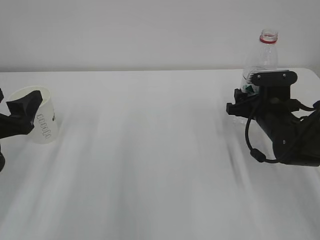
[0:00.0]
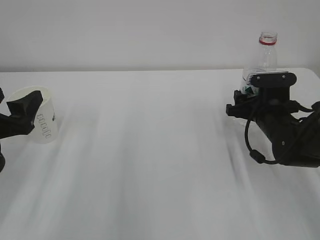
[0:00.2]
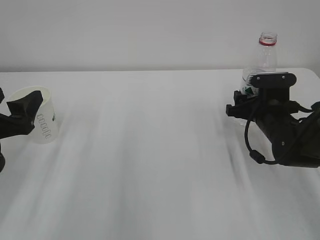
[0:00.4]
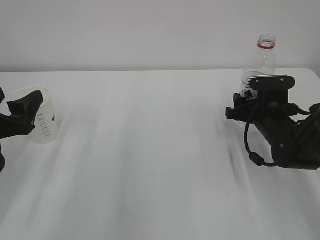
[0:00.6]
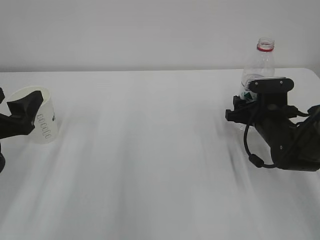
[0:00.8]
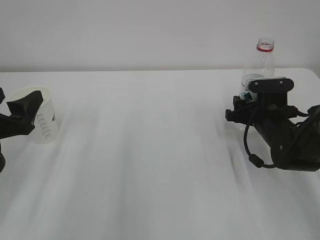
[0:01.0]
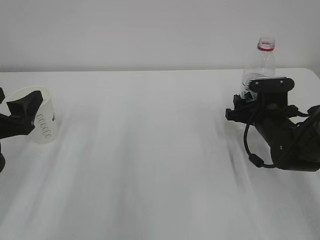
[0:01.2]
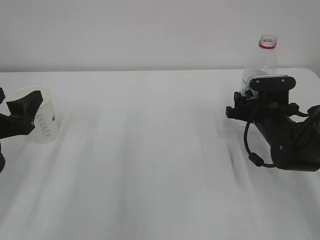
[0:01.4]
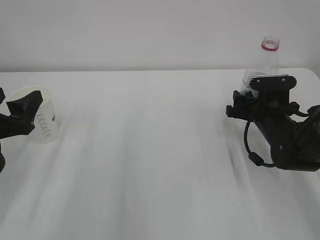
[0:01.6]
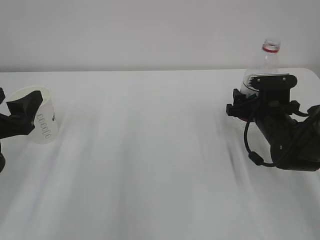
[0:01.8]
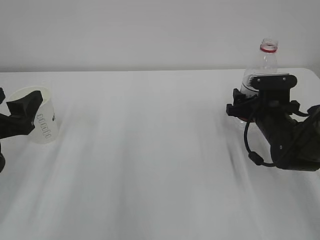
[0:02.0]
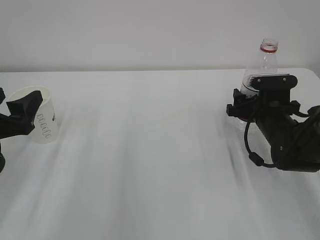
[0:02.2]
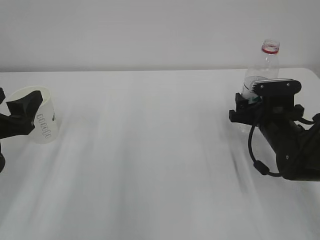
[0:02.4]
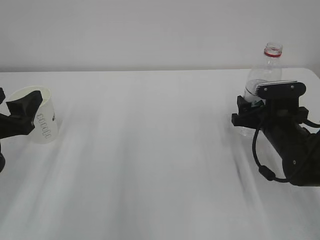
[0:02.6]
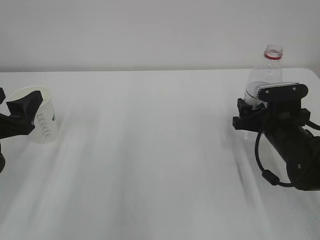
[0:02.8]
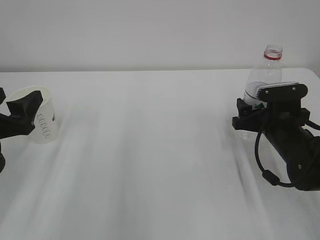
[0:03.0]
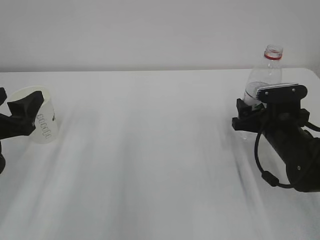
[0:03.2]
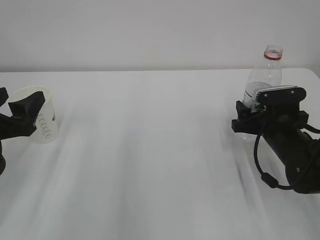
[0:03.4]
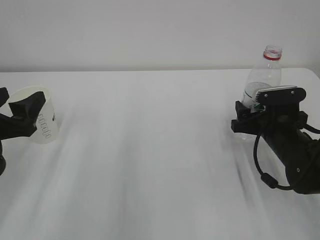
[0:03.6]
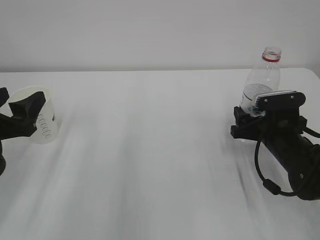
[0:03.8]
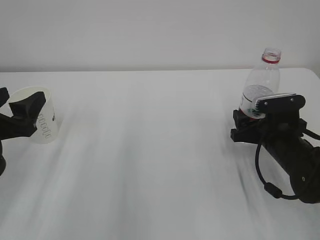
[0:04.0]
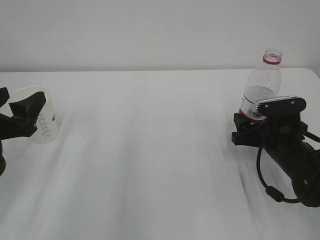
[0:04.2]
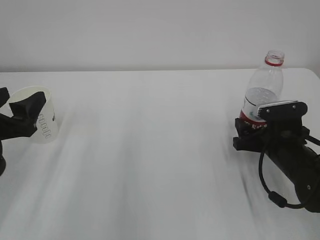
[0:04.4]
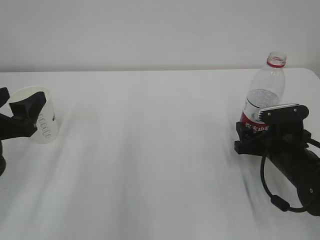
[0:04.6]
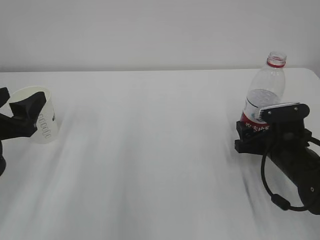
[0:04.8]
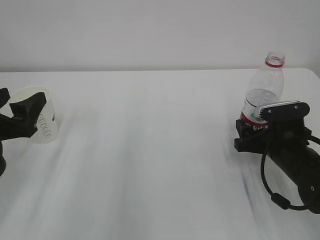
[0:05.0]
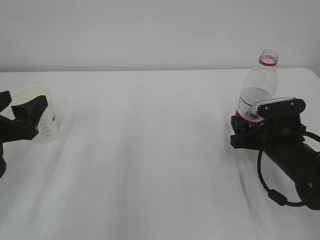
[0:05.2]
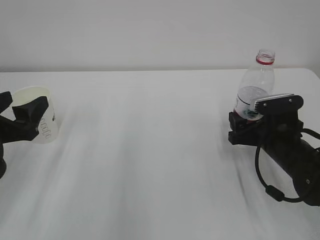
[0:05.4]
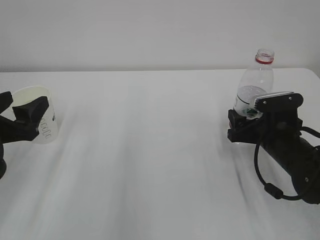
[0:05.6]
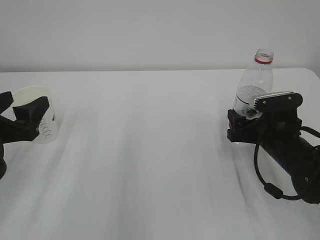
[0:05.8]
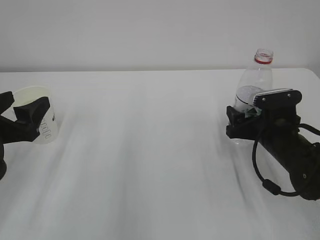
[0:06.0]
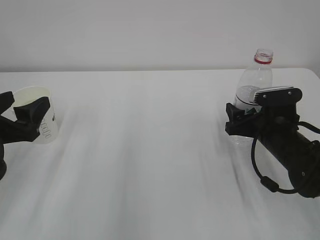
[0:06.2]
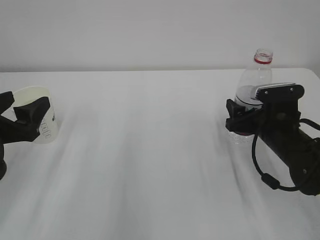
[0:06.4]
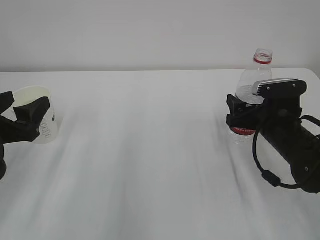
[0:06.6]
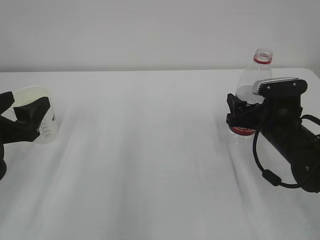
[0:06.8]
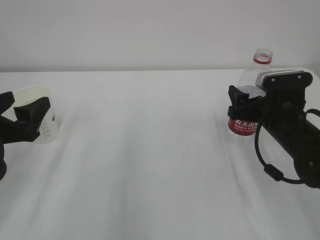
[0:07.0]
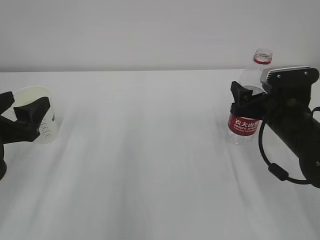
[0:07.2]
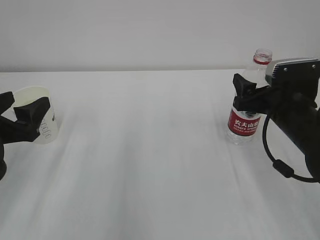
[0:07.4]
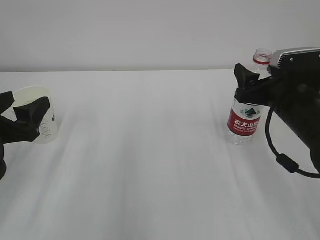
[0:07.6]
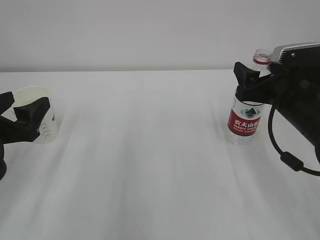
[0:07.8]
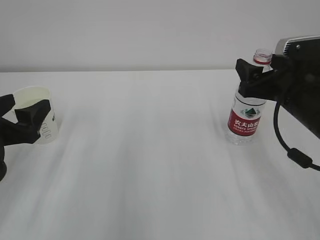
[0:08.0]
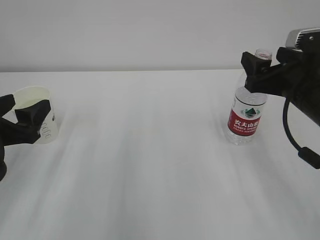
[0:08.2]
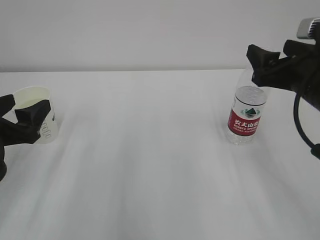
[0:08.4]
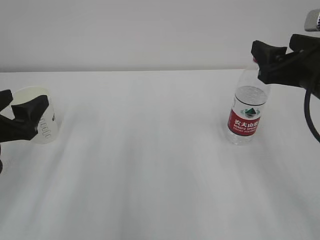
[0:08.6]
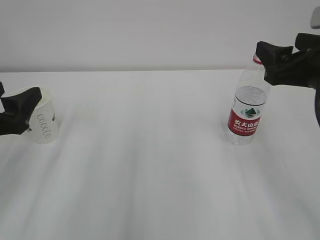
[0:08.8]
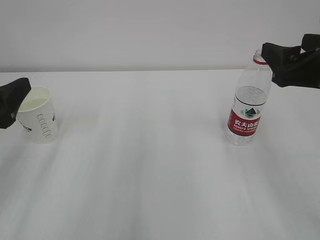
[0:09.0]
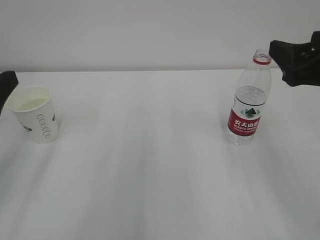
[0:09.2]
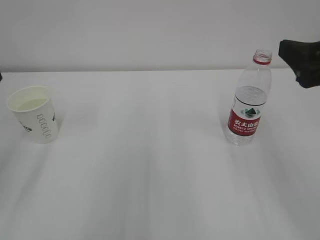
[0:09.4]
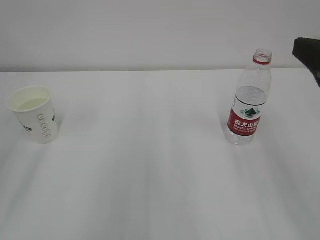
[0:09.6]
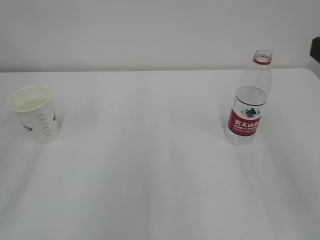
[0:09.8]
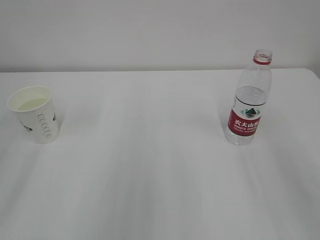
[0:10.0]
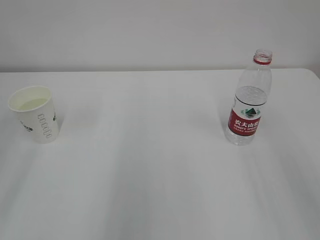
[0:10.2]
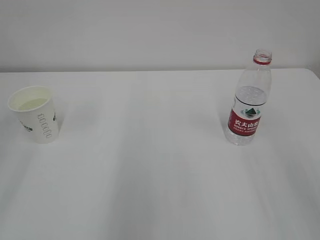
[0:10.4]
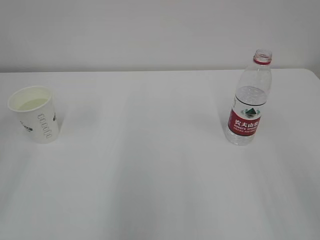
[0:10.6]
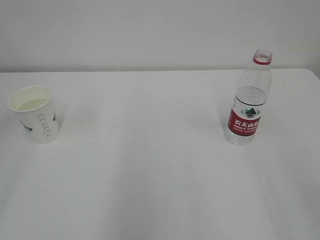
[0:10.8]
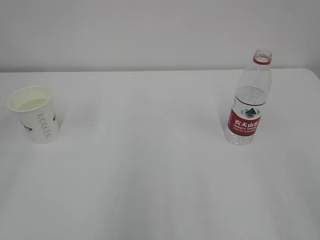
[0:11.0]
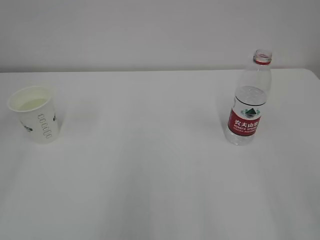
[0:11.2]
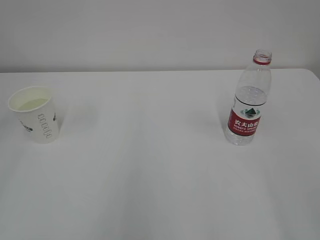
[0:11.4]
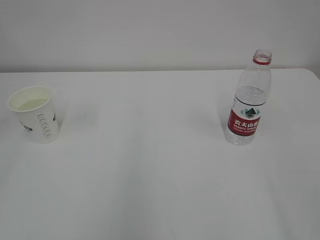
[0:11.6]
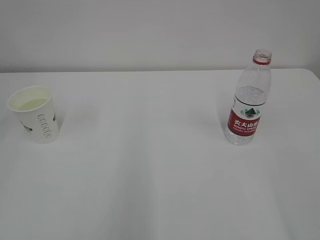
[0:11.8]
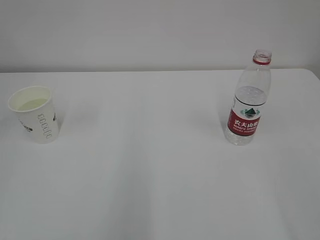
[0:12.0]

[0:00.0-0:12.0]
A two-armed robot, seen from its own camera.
0:00.0 to 0:03.0: The grippers move only a little.
0:03.0 to 0:06.0: The grippers move only a little.
0:06.0 to 0:07.6: The right gripper goes roughly 10 cm upward.
0:07.6 to 0:09.0: The right gripper goes about 10 cm upward and backward. Meanwhile the left gripper moves roughly 5 cm.
0:09.0 to 0:10.4: The right gripper is displaced backward and upward by roughly 15 cm; the left gripper is displaced upward and backward by about 15 cm.

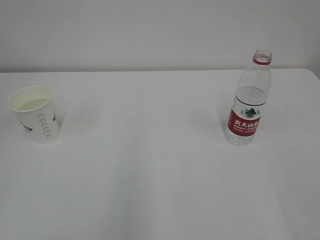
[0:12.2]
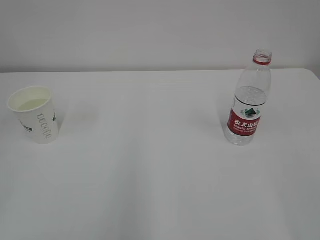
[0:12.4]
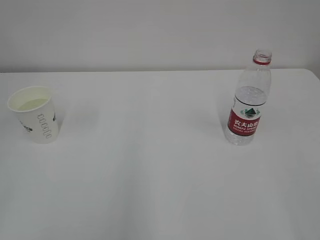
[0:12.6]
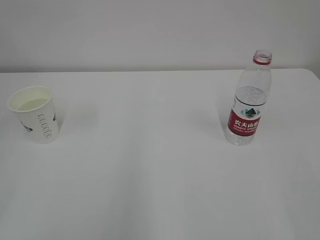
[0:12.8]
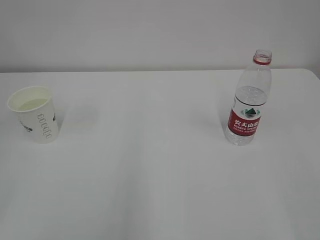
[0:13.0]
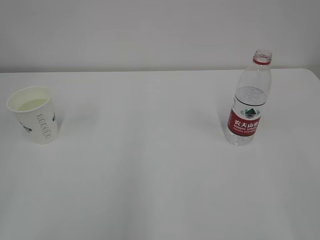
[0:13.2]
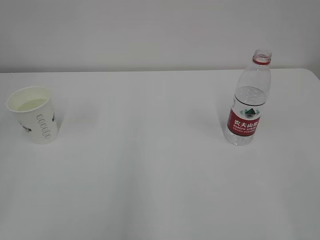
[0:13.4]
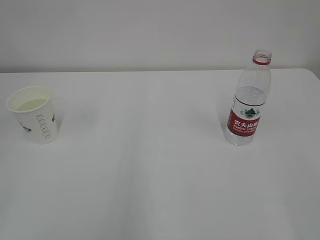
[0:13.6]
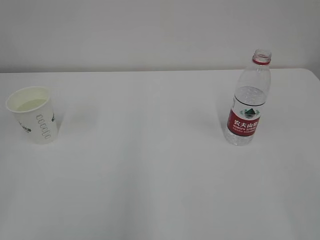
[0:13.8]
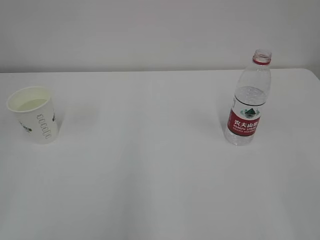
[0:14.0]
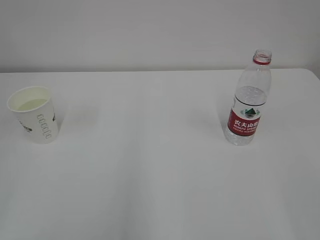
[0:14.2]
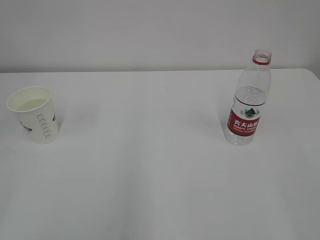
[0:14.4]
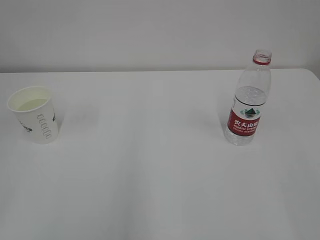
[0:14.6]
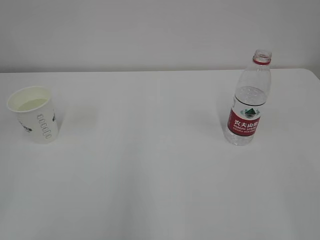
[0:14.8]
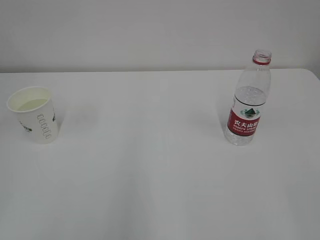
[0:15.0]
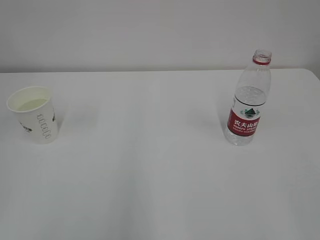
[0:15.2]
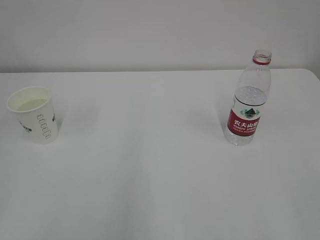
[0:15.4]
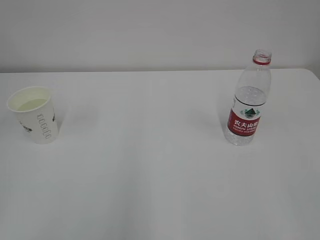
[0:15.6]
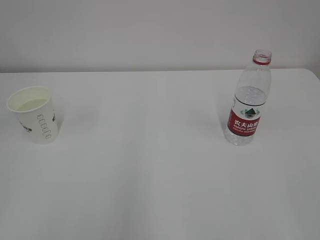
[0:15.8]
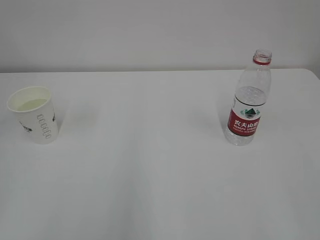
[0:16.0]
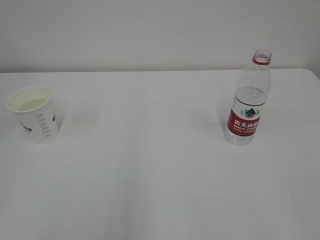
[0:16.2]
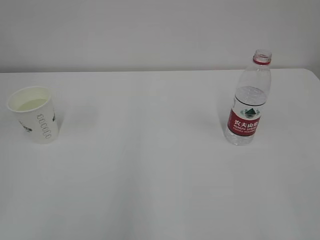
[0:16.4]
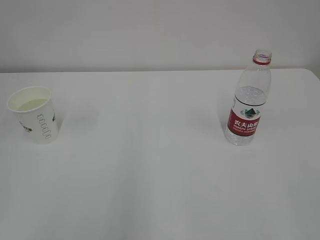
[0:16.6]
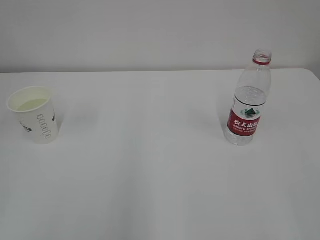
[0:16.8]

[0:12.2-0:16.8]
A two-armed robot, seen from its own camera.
0:15.2 to 0:16.8: Neither gripper changes place.

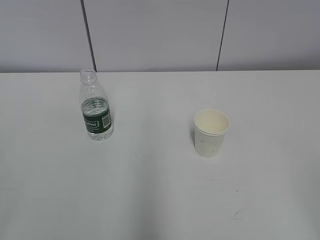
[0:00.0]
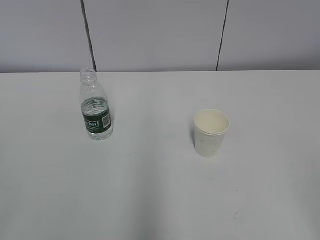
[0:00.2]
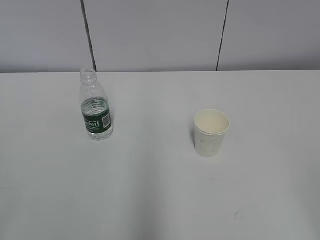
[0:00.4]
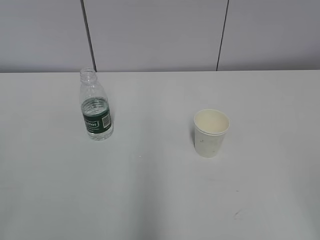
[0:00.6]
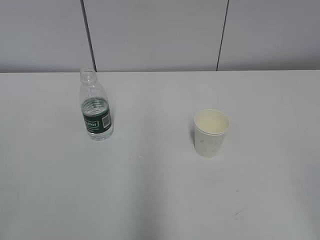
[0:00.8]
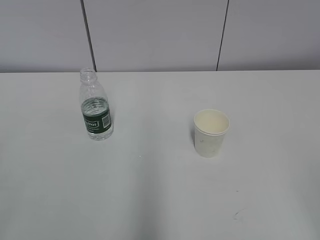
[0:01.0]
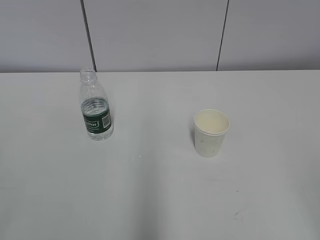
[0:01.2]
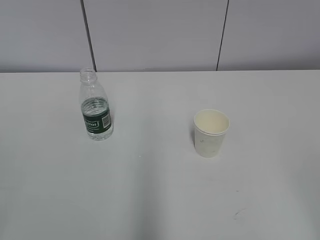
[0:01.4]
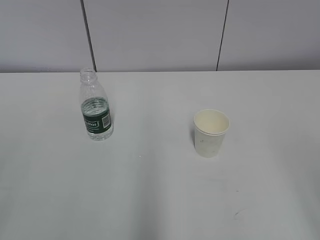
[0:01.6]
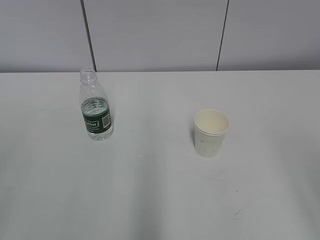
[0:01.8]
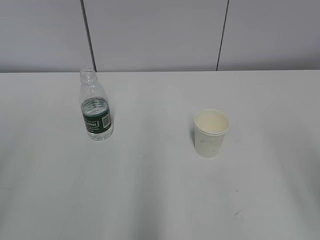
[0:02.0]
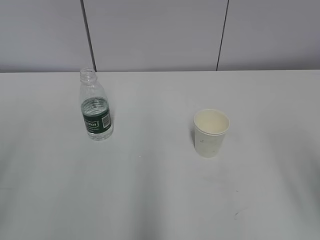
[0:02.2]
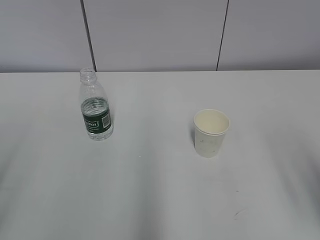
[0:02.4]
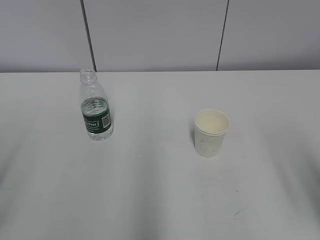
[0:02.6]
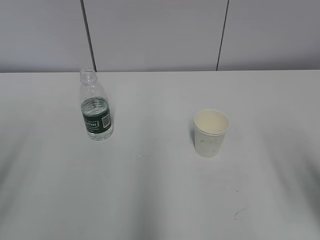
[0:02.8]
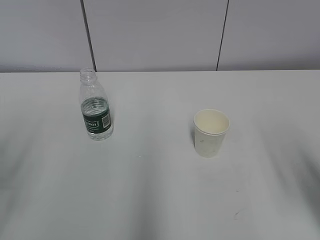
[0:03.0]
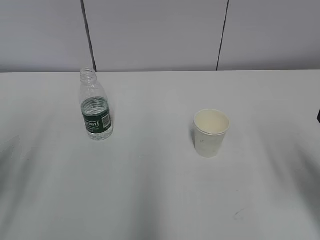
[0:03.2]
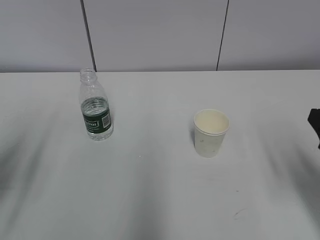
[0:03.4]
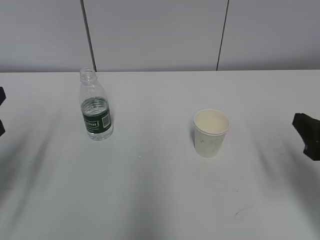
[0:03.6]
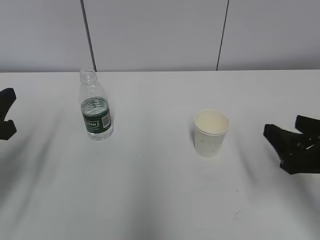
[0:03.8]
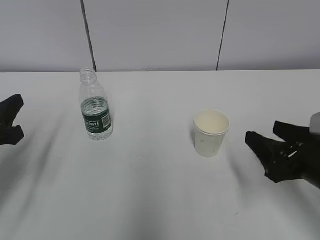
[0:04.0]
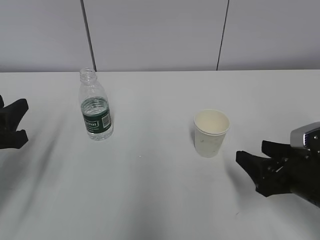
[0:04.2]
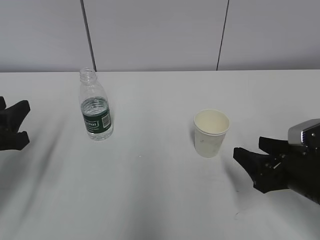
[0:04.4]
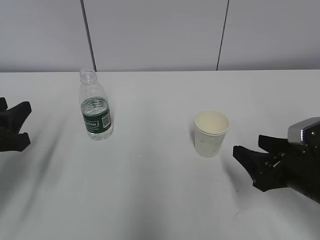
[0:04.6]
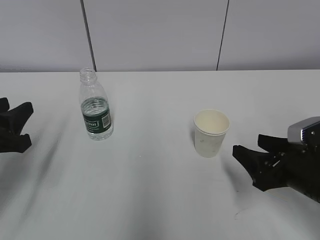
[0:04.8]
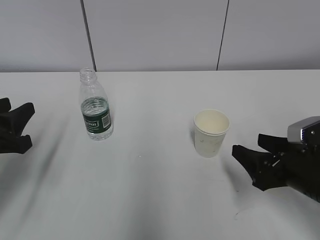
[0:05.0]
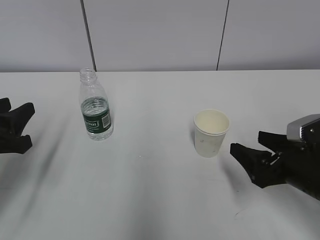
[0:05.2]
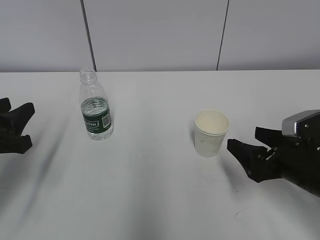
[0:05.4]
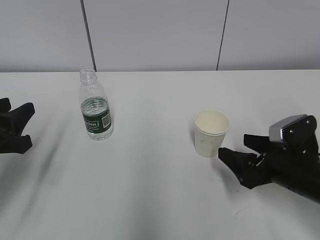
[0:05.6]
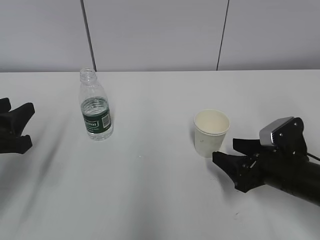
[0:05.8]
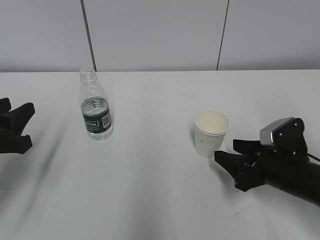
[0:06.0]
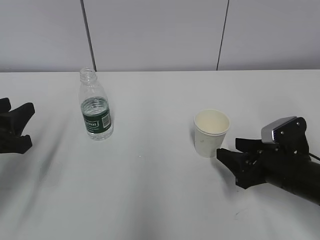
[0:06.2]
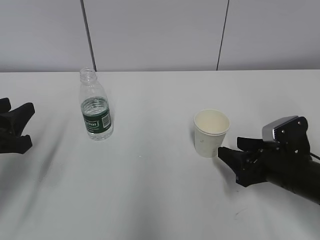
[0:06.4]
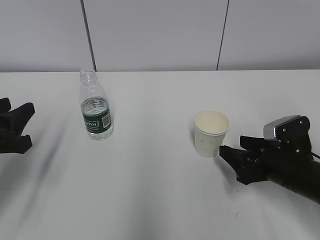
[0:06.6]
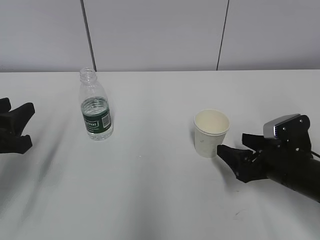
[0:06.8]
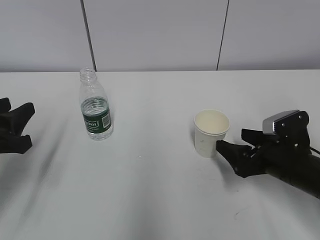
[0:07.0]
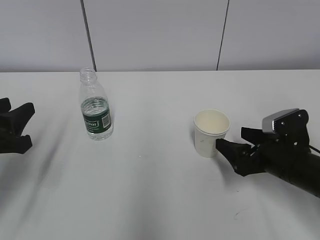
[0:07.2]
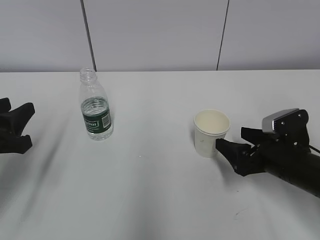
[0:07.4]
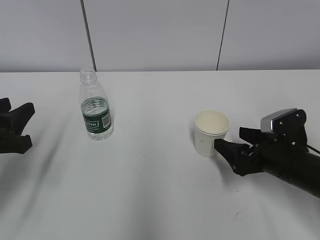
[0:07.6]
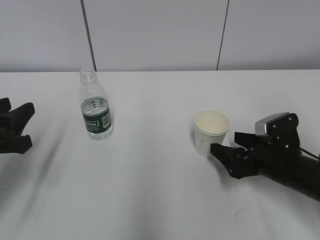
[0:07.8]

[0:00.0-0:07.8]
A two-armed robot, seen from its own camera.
0:01.6 to 0:03.2: Both grippers move forward and downward, about 15 cm.
0:03.2 to 0:04.6: Both grippers move downward and forward, some 10 cm.
0:04.6 to 0:06.2: The right gripper closes.
0:06.2 to 0:07.8: The right gripper opens its fingers.
